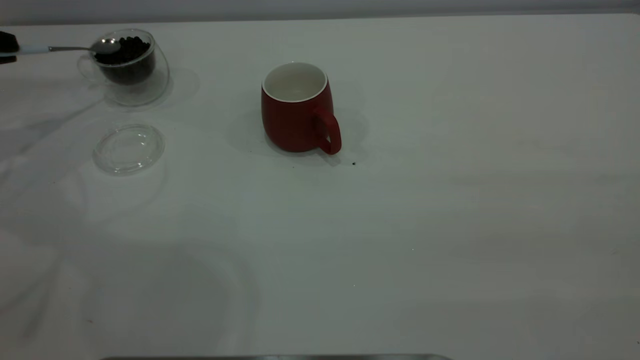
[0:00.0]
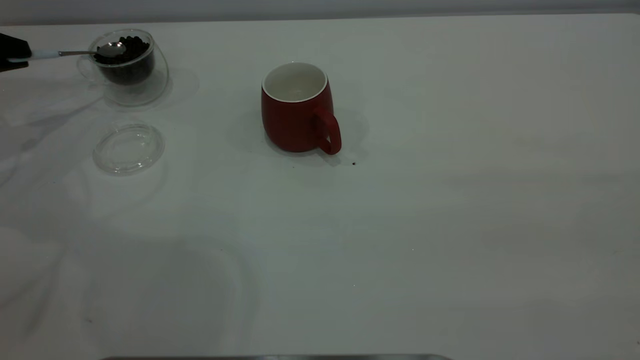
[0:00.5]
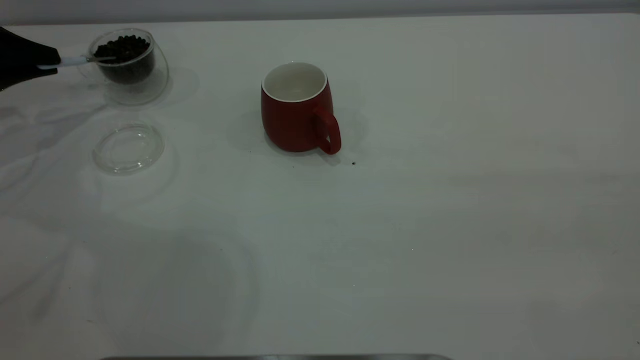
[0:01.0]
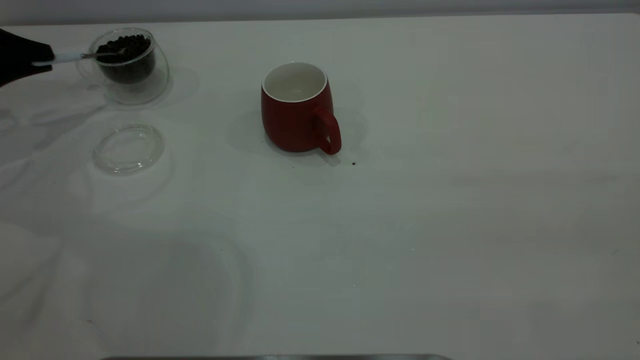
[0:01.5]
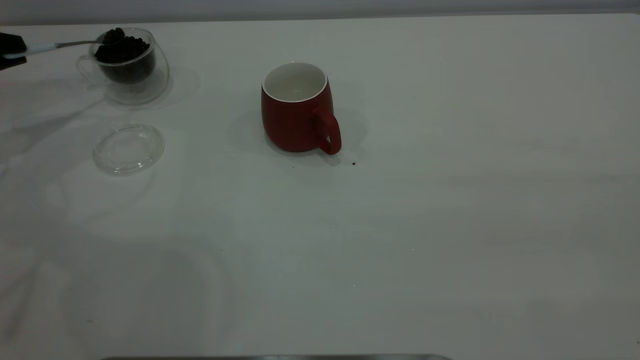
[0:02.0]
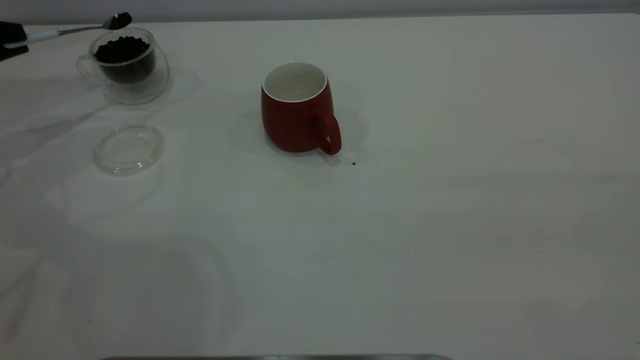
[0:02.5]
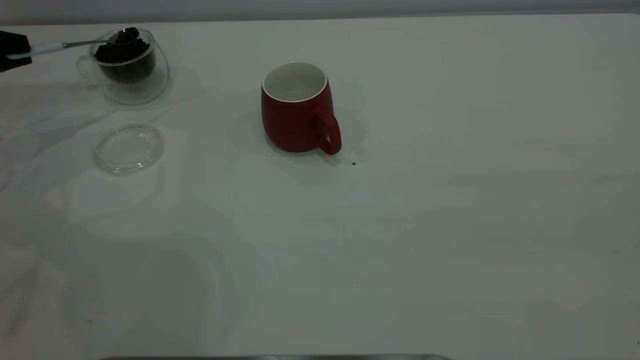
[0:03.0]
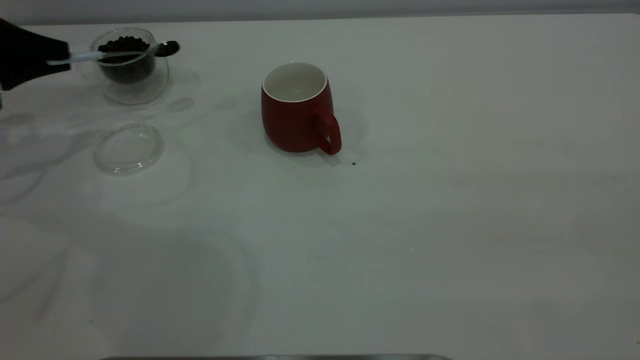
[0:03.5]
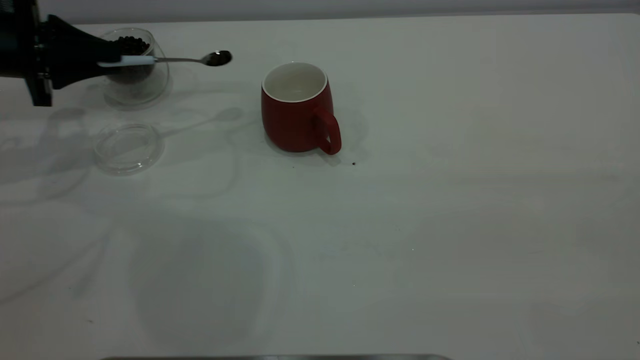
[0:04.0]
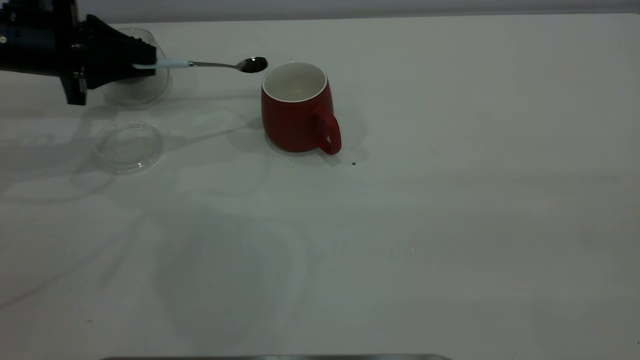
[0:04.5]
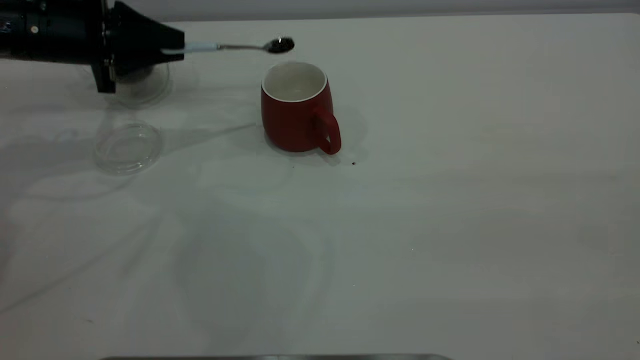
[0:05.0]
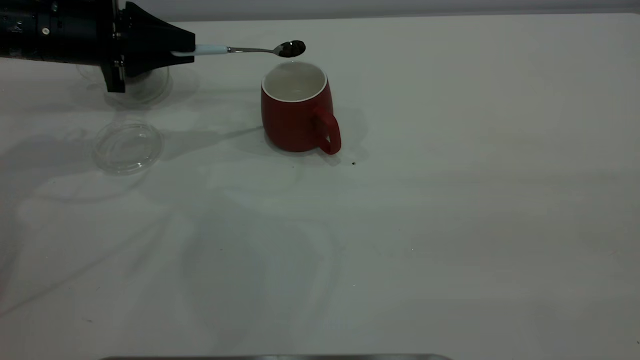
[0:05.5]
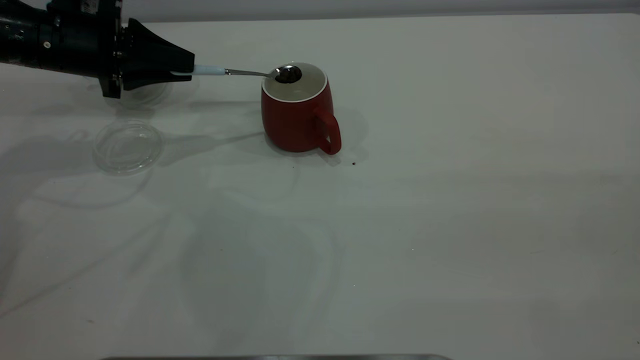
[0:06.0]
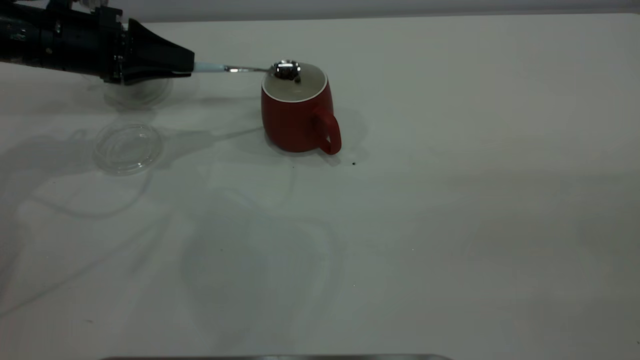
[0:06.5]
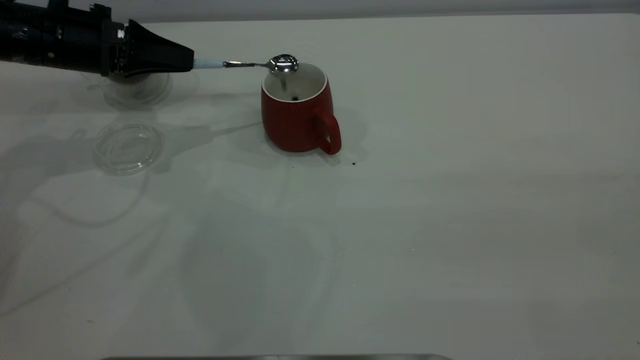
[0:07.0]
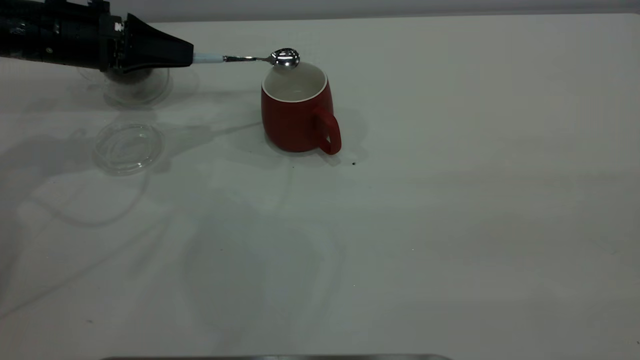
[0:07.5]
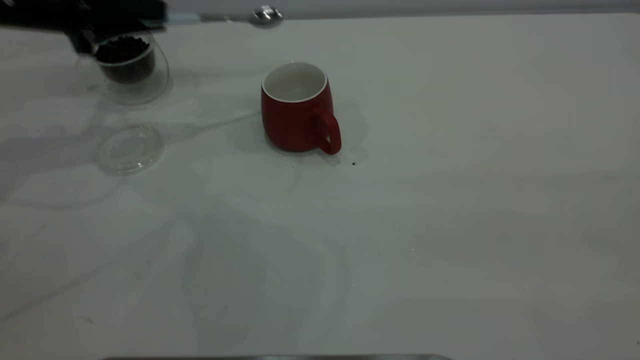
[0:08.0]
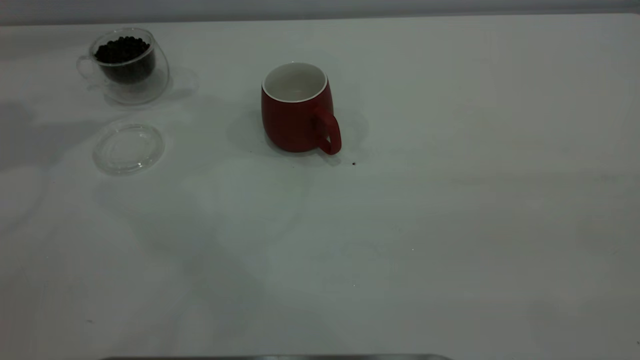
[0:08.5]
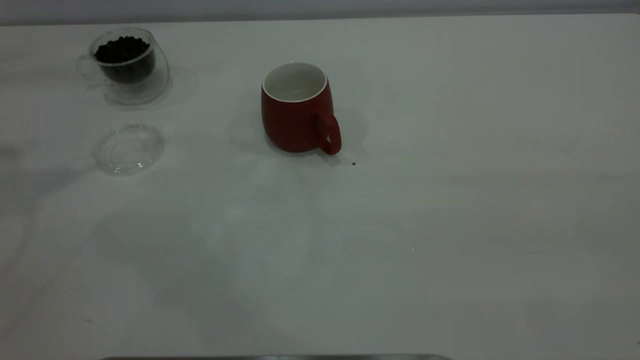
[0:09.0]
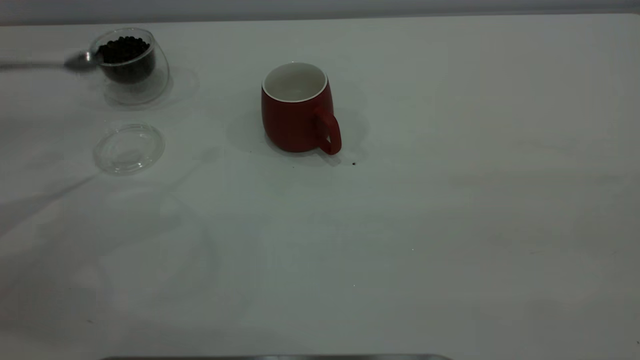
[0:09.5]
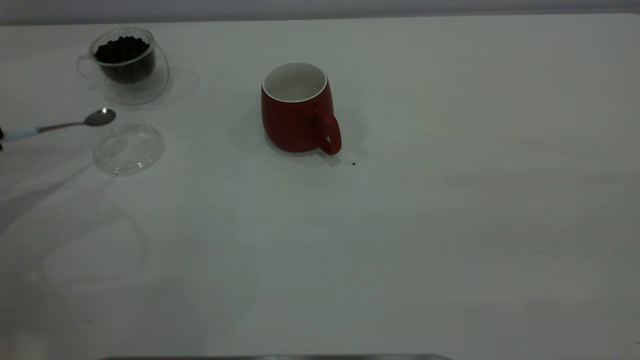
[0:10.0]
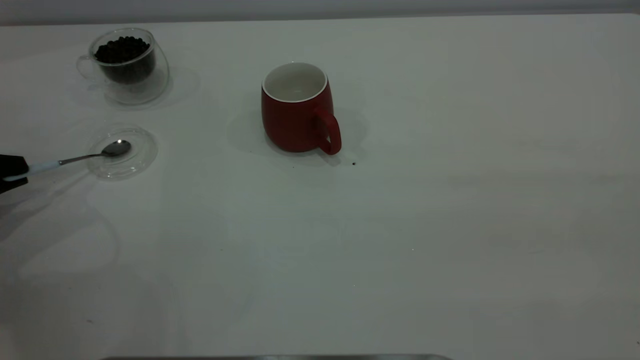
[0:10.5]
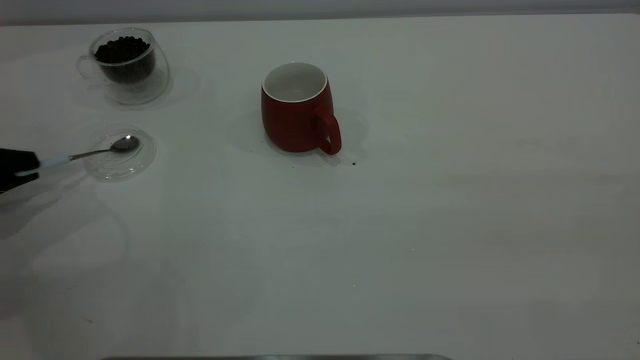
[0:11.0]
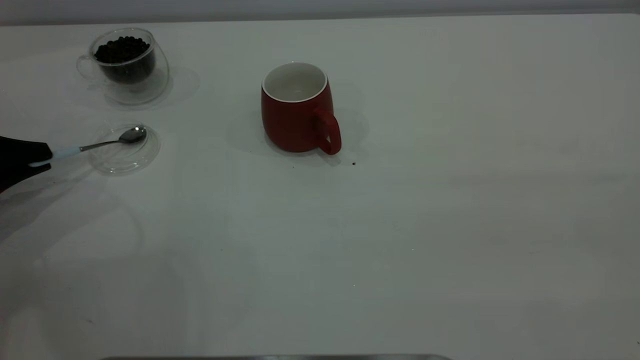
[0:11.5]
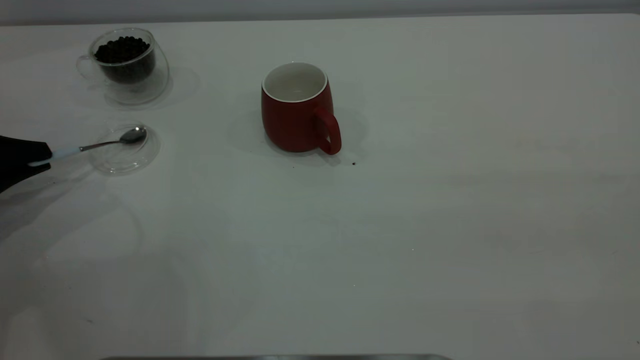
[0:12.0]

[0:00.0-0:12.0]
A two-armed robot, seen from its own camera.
Task of the whole recording: the right gripper place the red cup in the center of the table, the left gripper take the blue spoon from the cup lid and scoop out the coffee beans from the coffee cup and put them into the red cup, the left gripper put the spoon back into the cup lid.
Step, 0:00.0 to 0:07.5: Scoop a spoonful of beans into the cup.
0:02.0 to 0:04.0: The left gripper is displaced to the right by some 10 cm.
0:04.0 to 0:06.0: The left gripper moves to the right, roughly 5 cm.
0:06.0 to 0:08.0: The left gripper heads upward, covering roughly 5 cm.
0:08.0 to 0:10.0: The left gripper goes about 20 cm backward and to the left, and moves approximately 15 cm upward and comes back.
0:10.0 to 0:12.0: The left gripper moves approximately 5 cm.

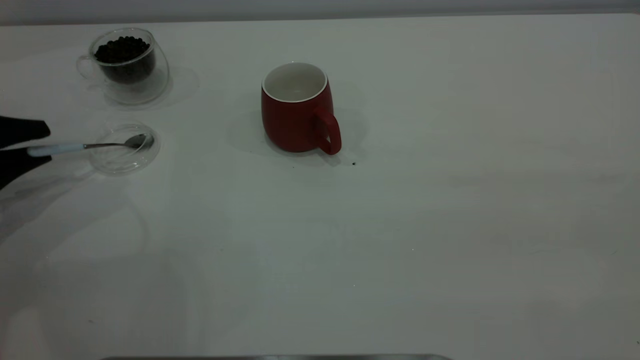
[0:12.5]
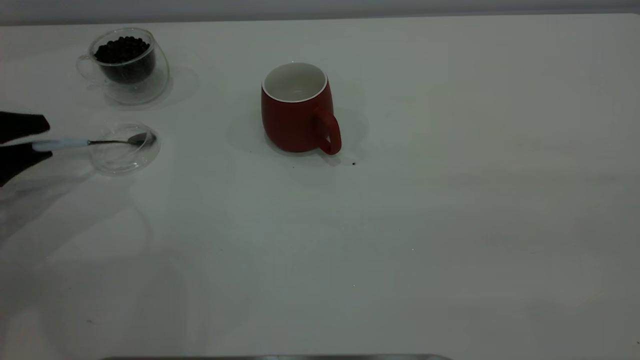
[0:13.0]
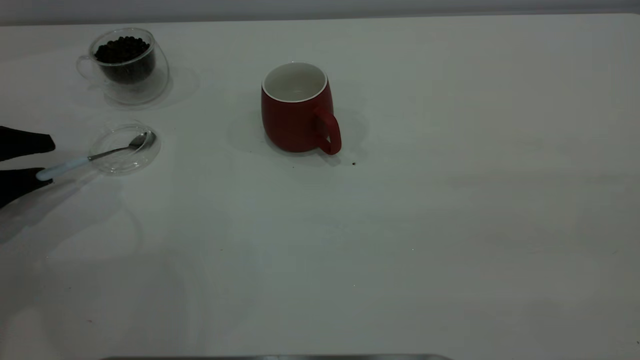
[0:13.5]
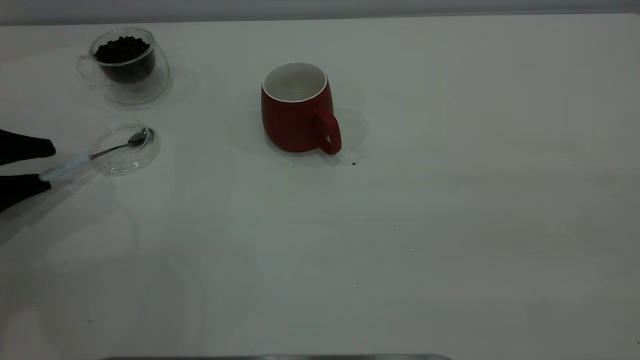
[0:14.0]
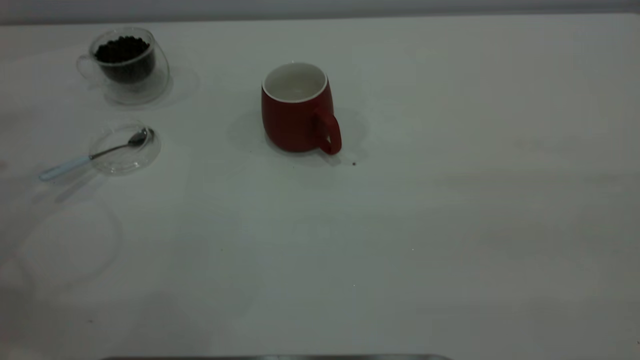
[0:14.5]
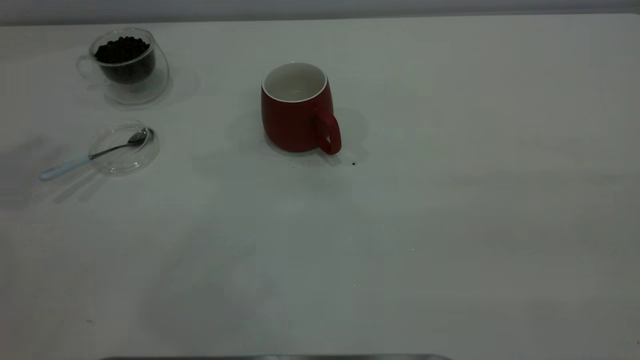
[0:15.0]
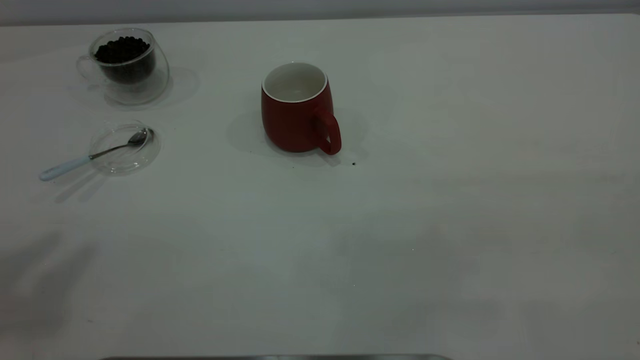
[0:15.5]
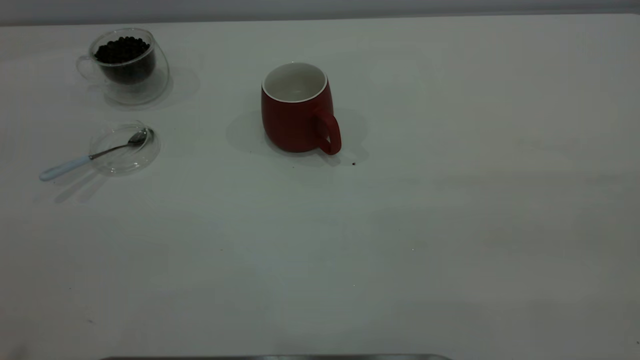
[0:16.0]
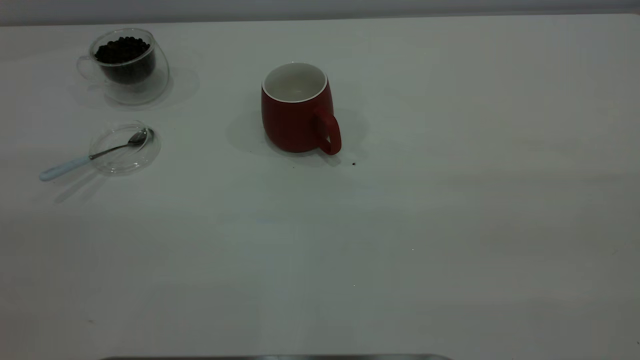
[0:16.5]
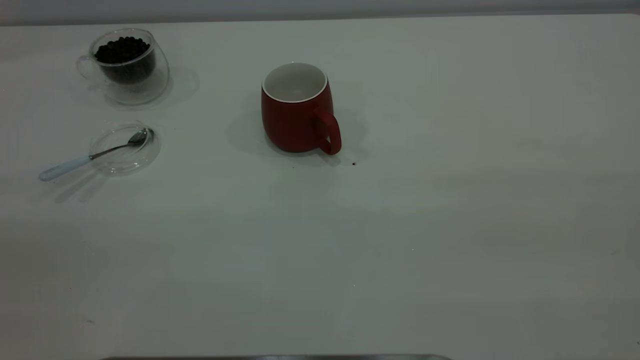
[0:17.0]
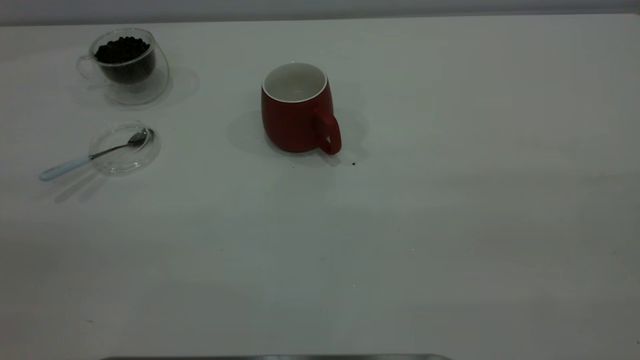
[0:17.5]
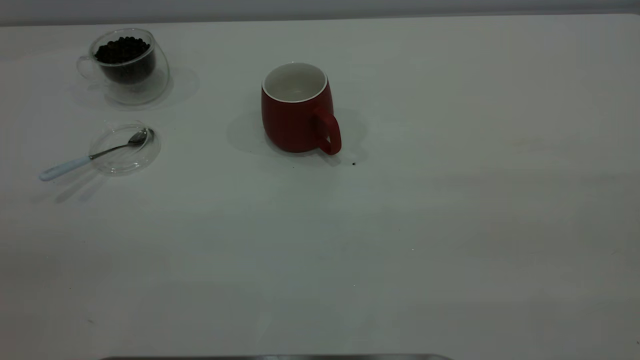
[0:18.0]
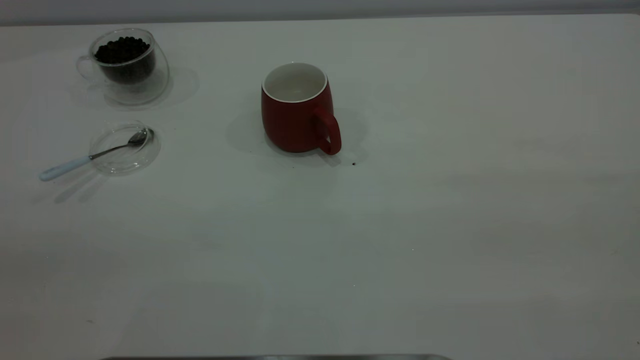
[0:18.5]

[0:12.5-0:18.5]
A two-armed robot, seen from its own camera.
Task of the whole recording: the right gripper place the red cup in the center of the table, the left gripper take the blue spoon from the cup lid and scoop out the coffee beans from the coffee cup and put them into the red cup, the left gripper put the spoon back into the cup lid.
0:12.5 to 0:14.5: The left gripper is displaced upward and to the left by about 10 cm.
